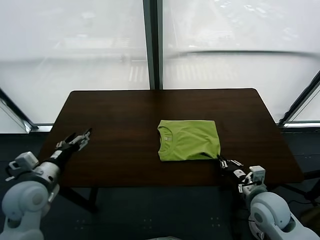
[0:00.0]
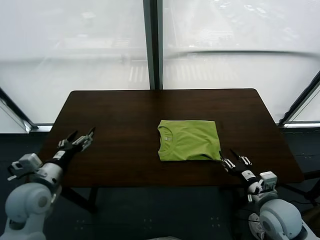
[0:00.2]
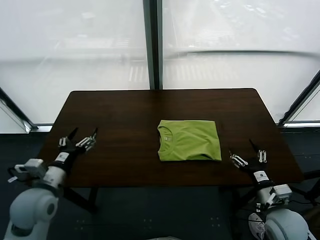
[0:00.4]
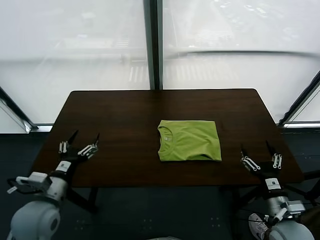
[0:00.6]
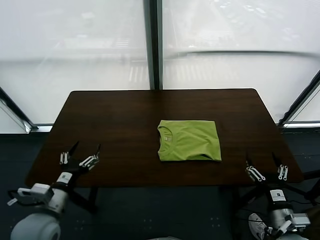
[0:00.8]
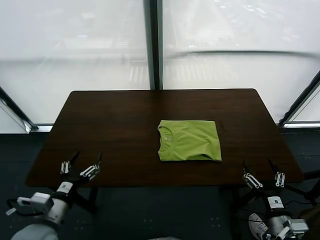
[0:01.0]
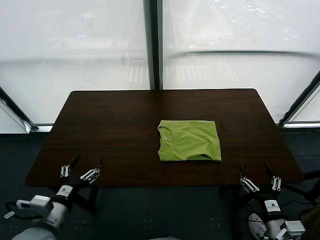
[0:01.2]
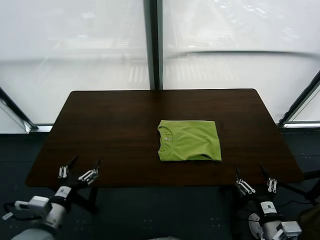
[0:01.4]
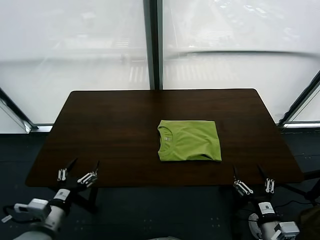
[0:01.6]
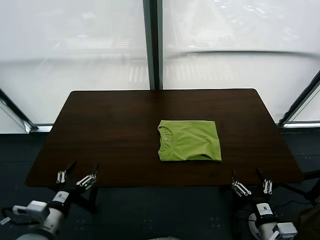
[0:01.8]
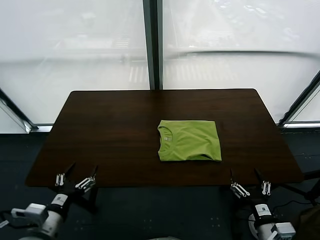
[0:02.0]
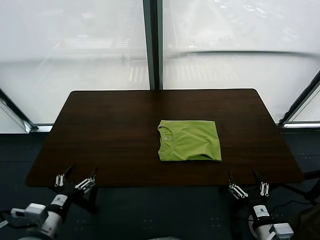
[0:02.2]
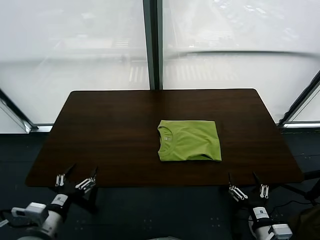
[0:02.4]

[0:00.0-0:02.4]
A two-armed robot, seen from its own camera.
Task of the whole recording: fold and organize the clothes.
0:00.0 to 0:01.2: The right gripper is displaced backward by approximately 15 cm, and opens up. Meanwhile the left gripper heads backward and to the right, covering some 10 cm.
0:01.2 to 0:02.4: The grippers make only small movements.
